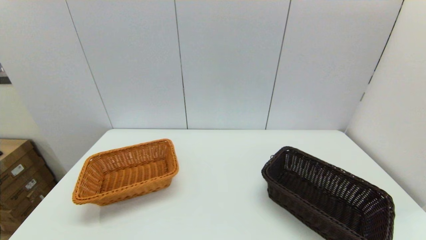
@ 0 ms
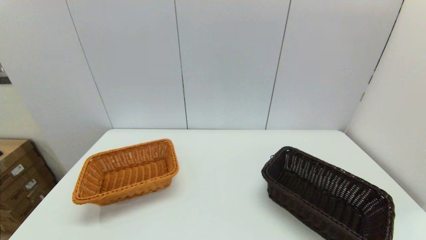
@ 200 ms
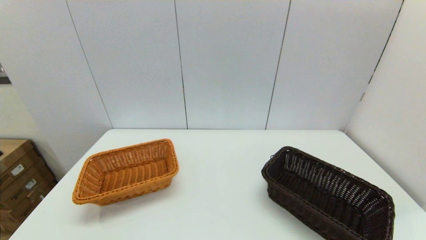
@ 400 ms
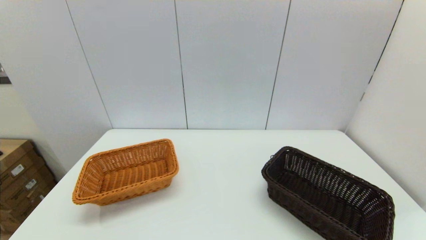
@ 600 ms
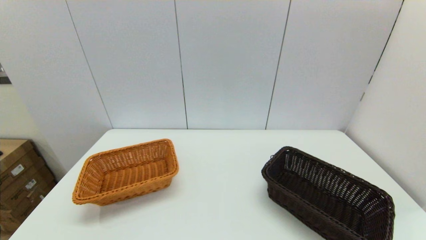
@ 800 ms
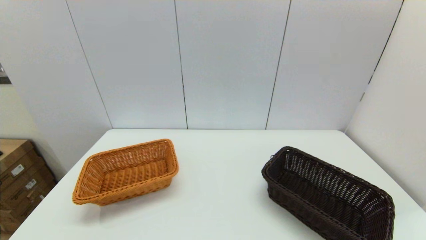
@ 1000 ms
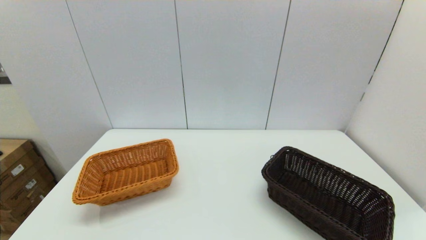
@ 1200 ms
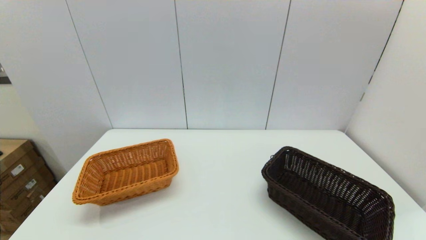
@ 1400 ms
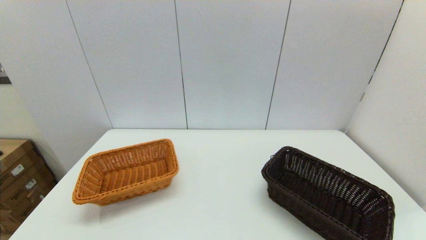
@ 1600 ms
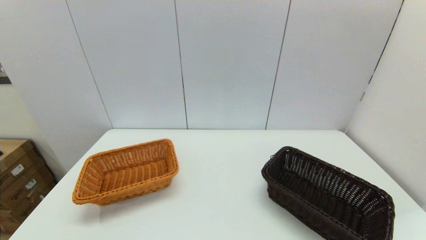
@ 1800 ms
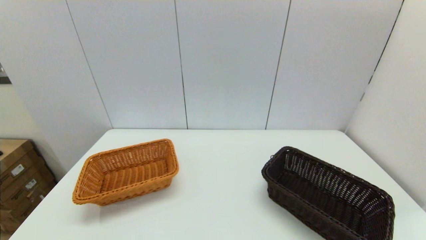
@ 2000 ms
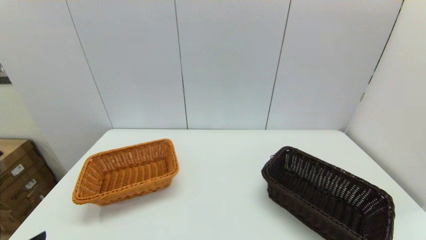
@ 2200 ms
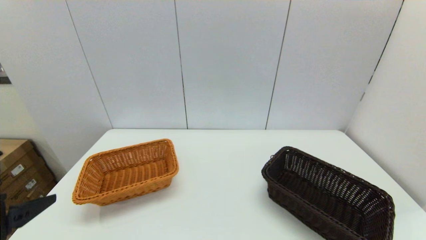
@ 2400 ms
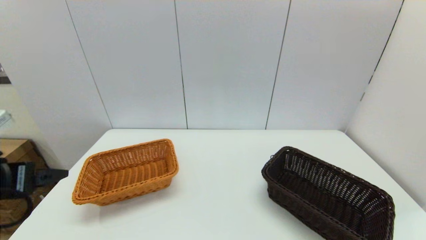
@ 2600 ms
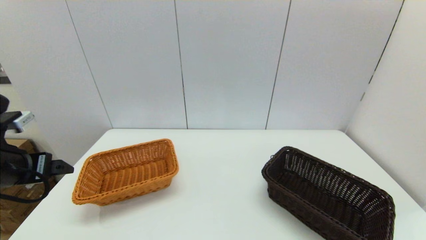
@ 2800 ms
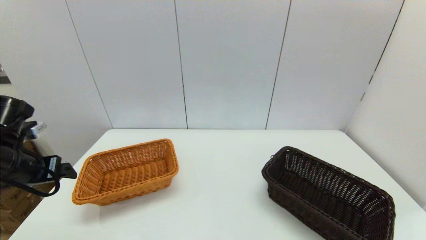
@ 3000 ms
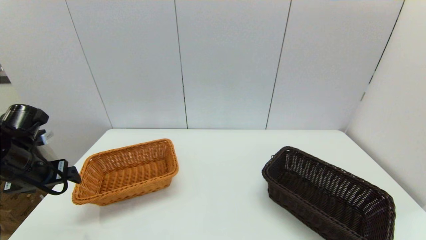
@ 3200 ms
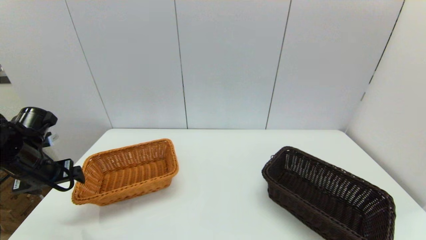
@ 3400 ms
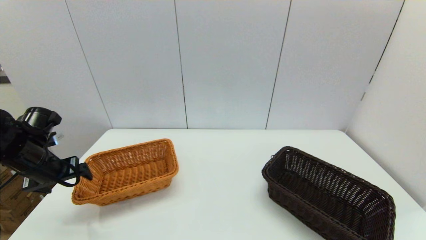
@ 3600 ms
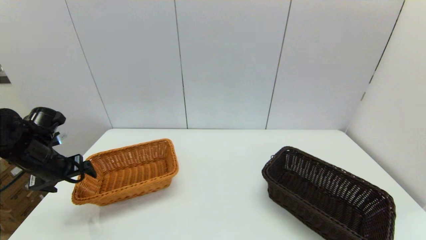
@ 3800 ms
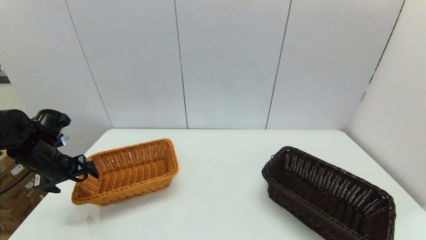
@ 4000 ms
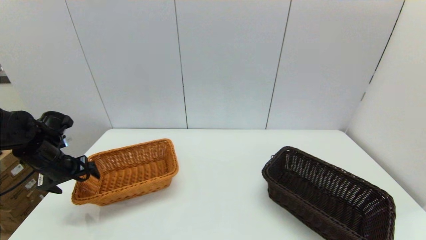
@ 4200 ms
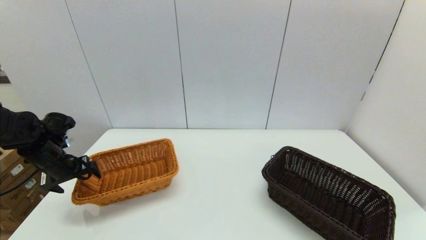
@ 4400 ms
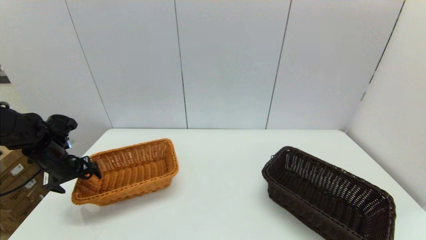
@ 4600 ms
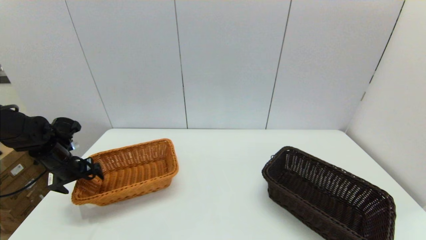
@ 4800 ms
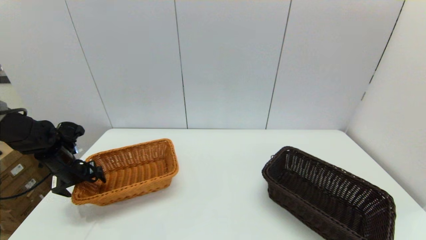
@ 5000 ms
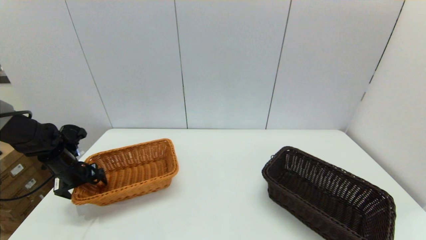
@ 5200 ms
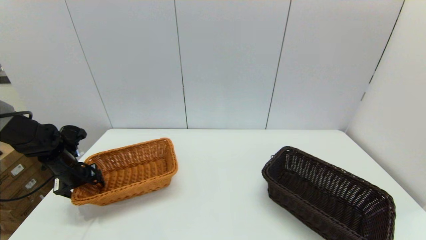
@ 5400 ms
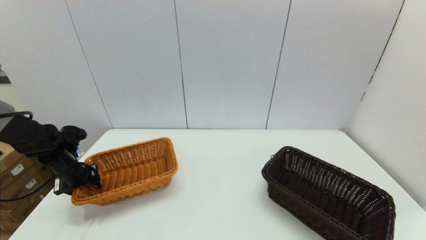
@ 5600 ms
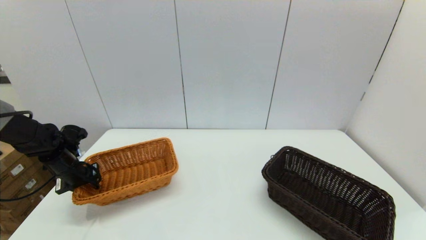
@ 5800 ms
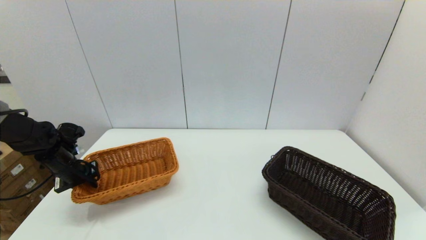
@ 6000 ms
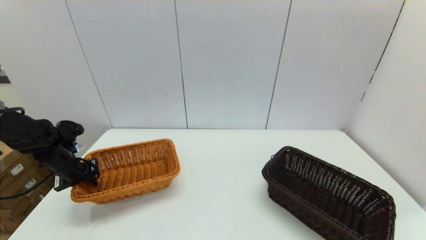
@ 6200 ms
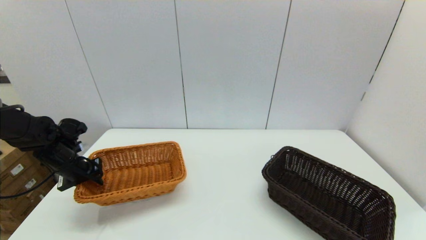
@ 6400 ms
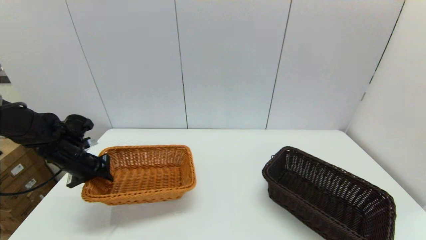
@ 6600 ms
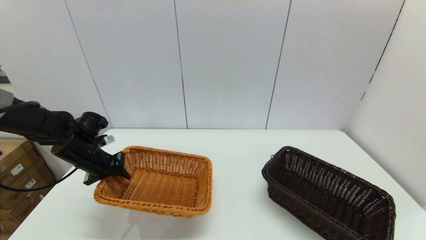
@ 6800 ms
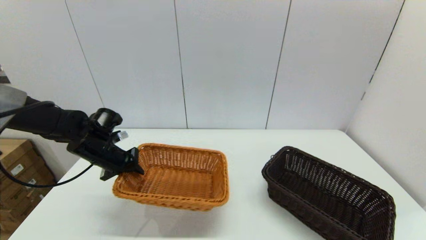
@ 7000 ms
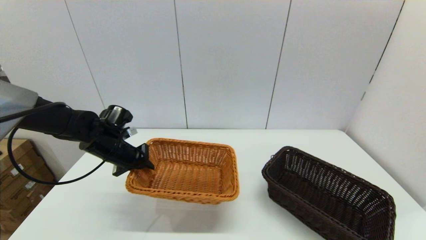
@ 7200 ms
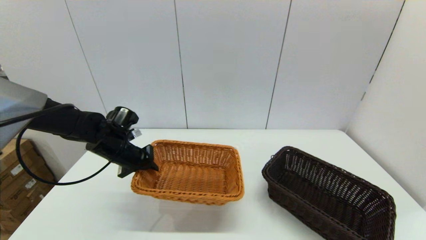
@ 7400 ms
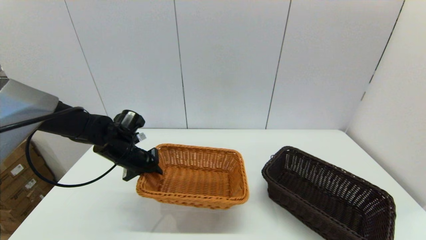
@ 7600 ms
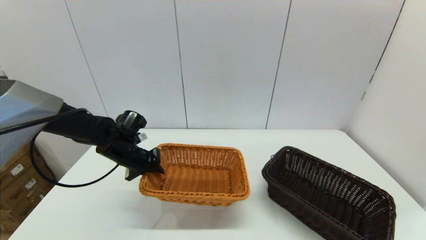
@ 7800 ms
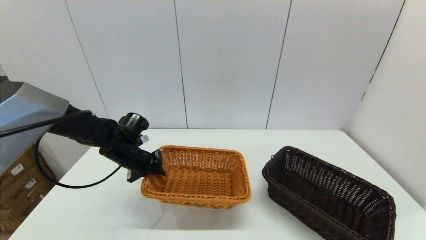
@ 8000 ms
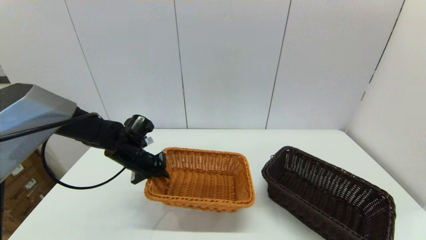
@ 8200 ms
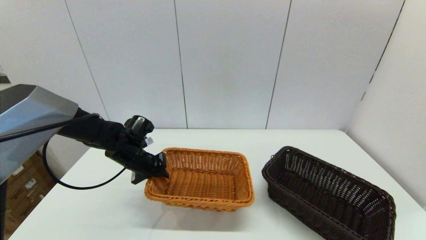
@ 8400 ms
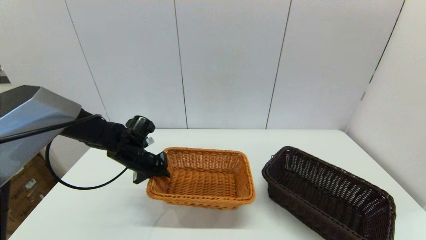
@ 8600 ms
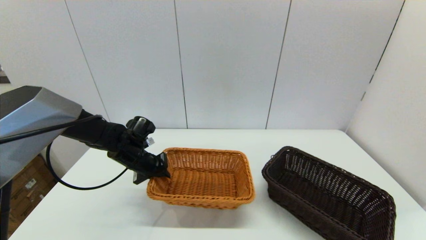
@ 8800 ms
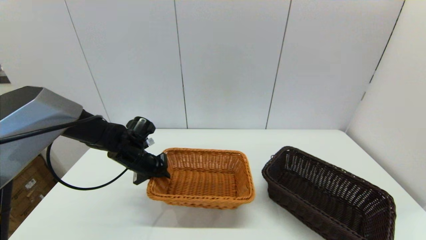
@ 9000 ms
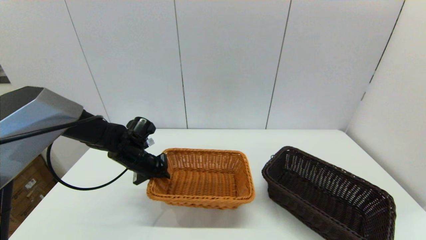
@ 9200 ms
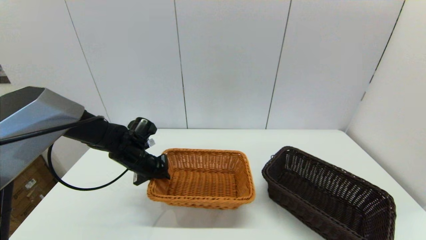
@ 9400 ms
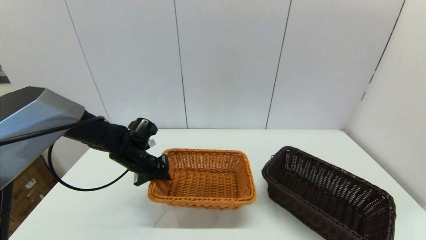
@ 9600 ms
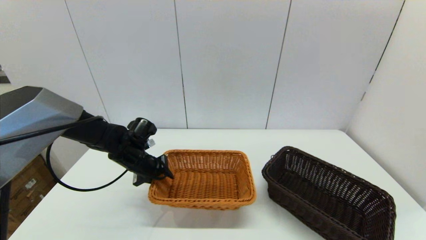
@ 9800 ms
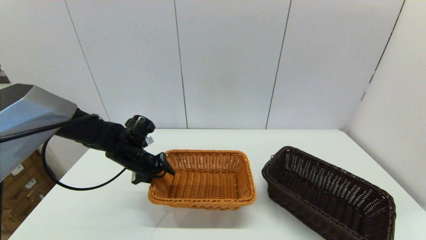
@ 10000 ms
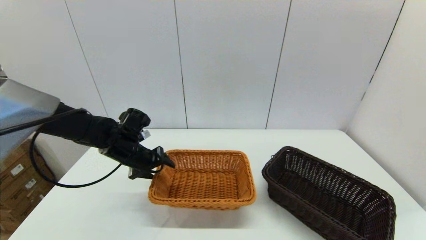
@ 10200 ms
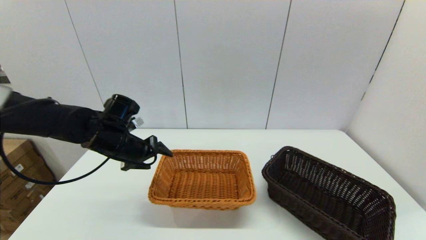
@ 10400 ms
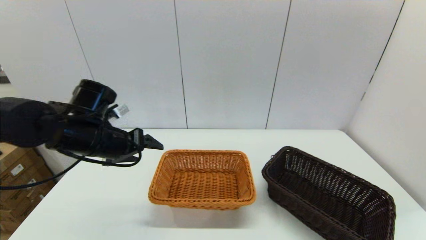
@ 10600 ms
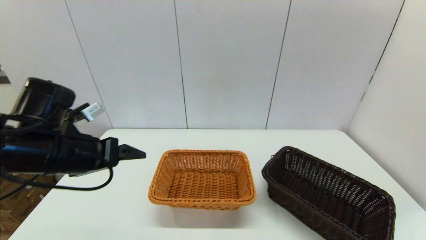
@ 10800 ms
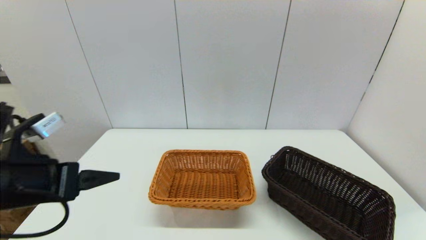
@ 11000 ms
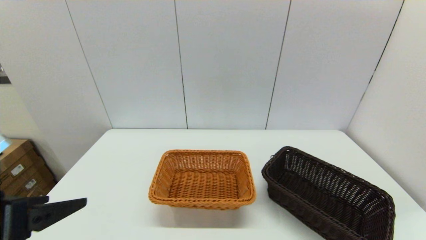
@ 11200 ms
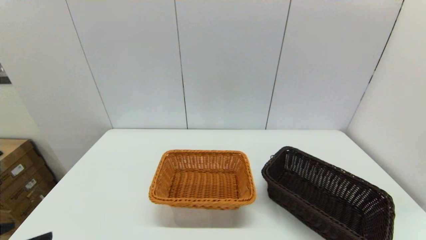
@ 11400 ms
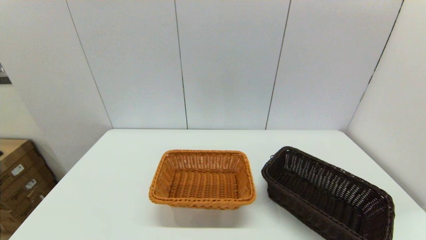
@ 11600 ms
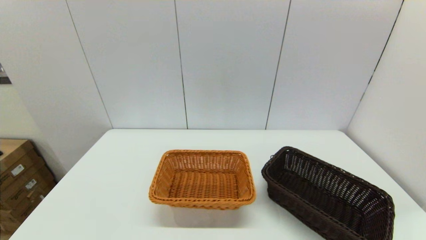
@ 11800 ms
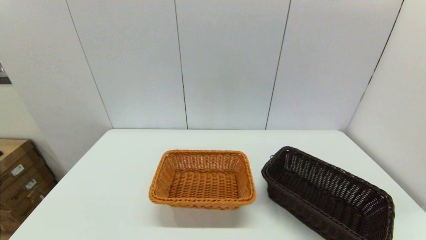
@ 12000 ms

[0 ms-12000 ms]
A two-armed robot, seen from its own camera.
Task of the whole recording: stack a basket on top of another basket.
Step, 2000 ms to 5800 ms: Grasp the light basket with the left gripper.
Step, 6000 ms to 10800 ms: Place the light basket on the middle of the table with the left gripper.
0 ms to 1600 ms: Both grippers stay about where they are.
1600 ms to 3000 ms: The left gripper is displaced forward by some 25 cm.
3000 ms to 4400 ms: The left gripper goes approximately 10 cm forward and downward.
4400 ms to 6000 ms: The left gripper closes.
6000 ms to 7600 ms: The left gripper moves to the right, roughly 15 cm.
7600 ms to 9000 ms: The grippers make only small movements.
9000 ms to 10400 ms: The left gripper shifts roughly 10 cm upward, and opens.
10400 ms to 12000 ms: The left gripper shifts approximately 35 cm backward.

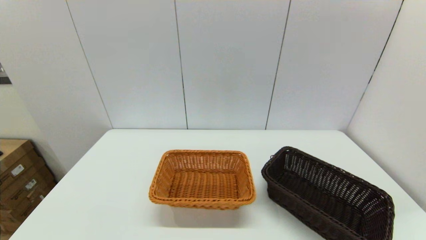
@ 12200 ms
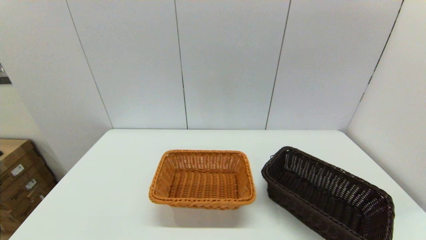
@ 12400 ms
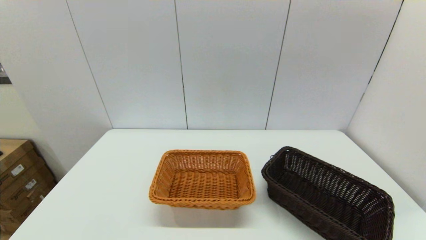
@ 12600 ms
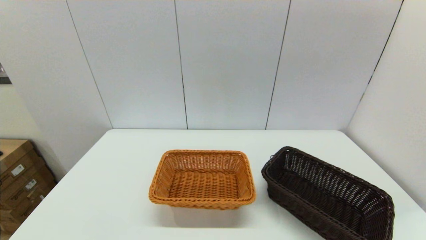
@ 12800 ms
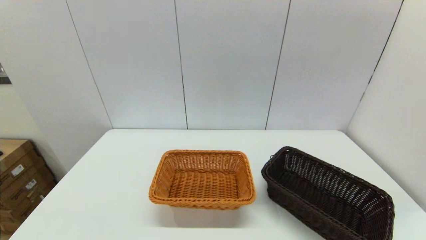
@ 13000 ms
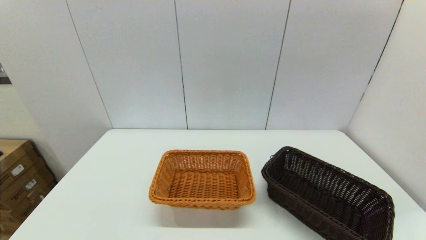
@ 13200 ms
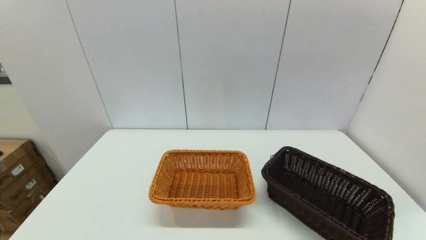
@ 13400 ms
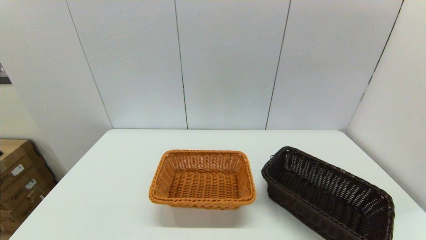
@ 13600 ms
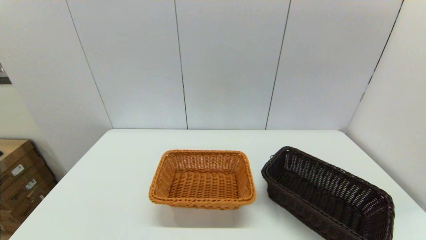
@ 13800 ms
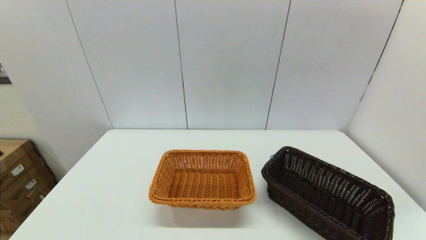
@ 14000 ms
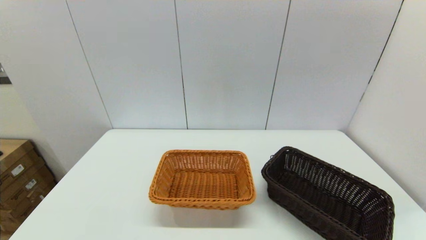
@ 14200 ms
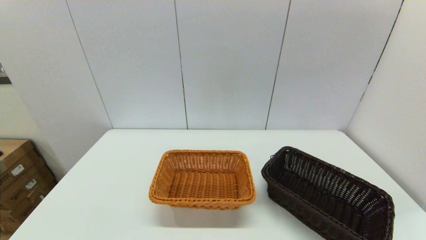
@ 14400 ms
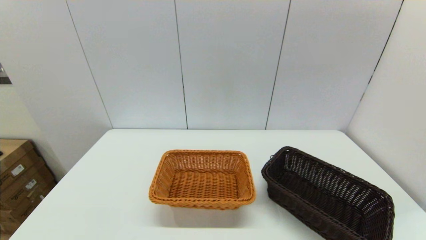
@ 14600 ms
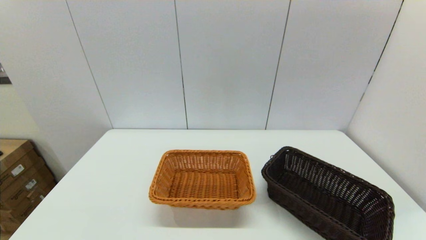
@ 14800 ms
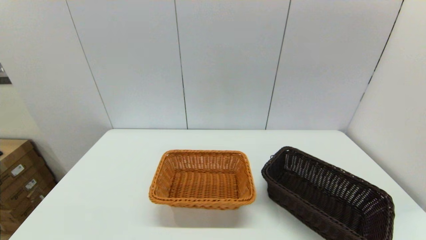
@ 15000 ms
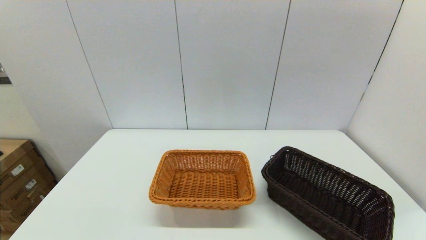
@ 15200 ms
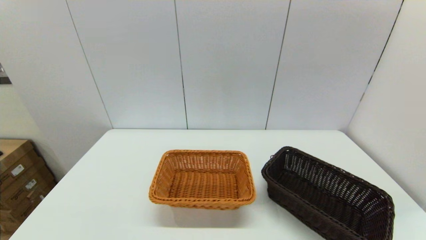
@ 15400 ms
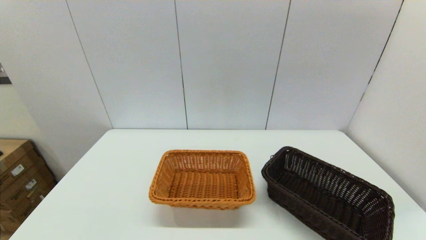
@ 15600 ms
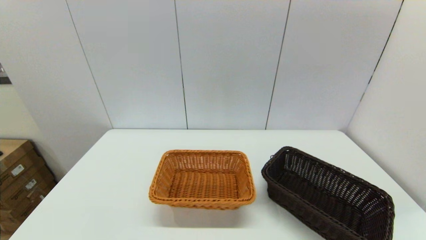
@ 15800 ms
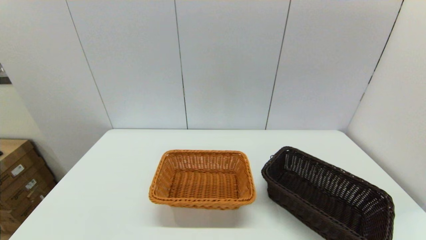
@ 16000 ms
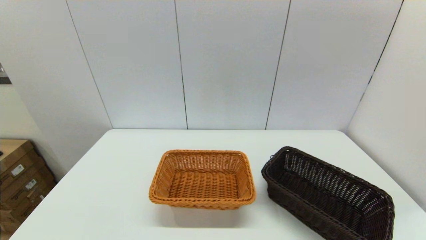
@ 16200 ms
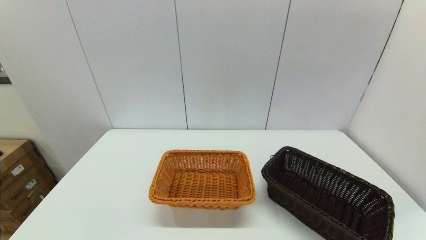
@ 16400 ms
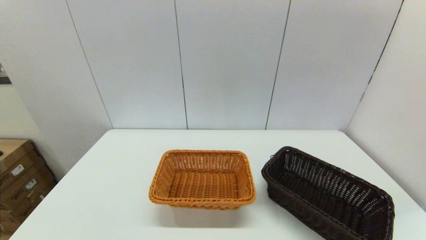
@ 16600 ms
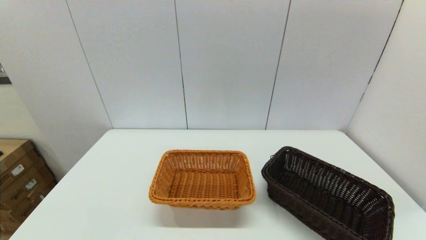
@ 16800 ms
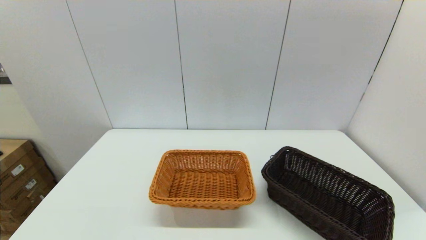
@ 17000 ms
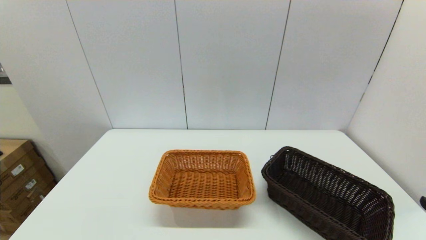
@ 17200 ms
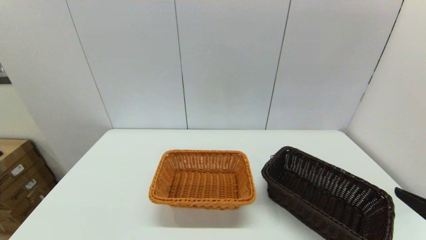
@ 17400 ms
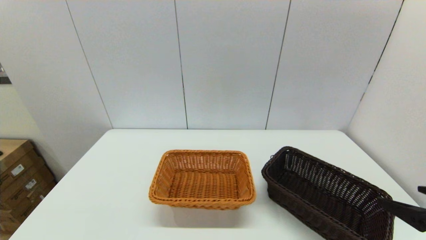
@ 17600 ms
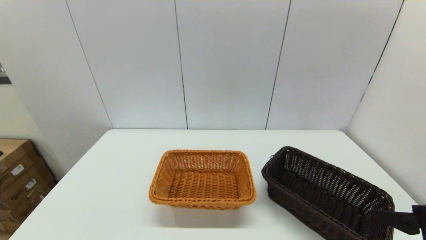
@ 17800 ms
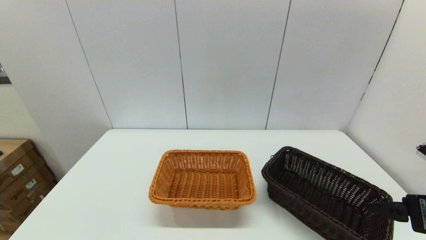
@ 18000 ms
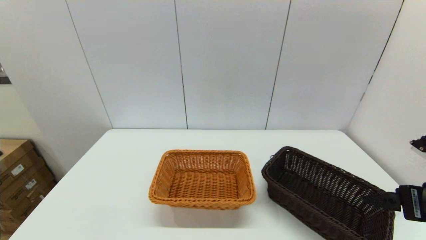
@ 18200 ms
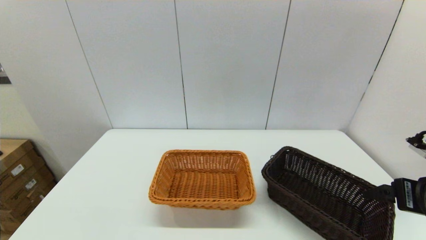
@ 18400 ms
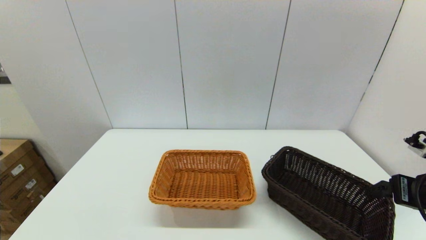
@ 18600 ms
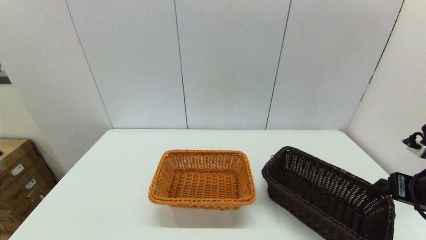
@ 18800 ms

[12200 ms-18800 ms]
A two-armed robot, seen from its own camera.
Task of the whole recording: stack a basket on top of another basket.
17200 ms to 18800 ms: The right gripper shifts approximately 15 cm forward.
